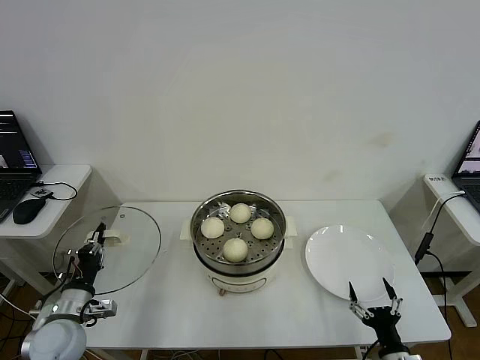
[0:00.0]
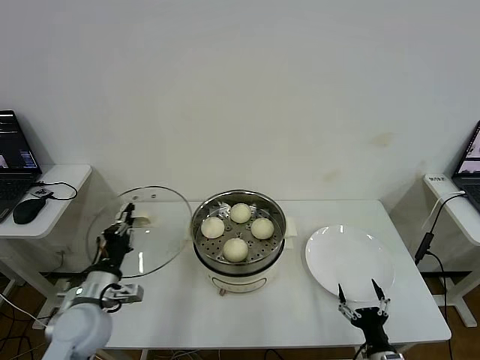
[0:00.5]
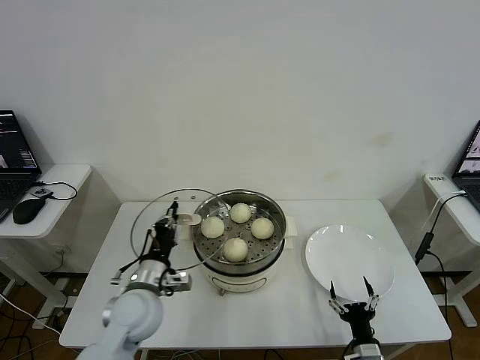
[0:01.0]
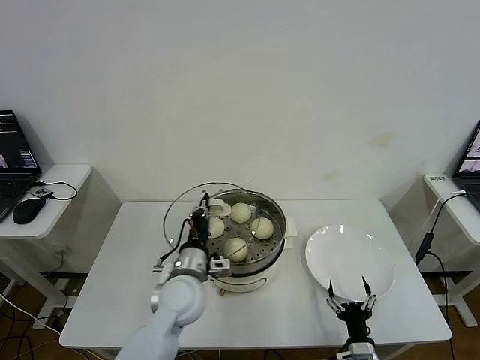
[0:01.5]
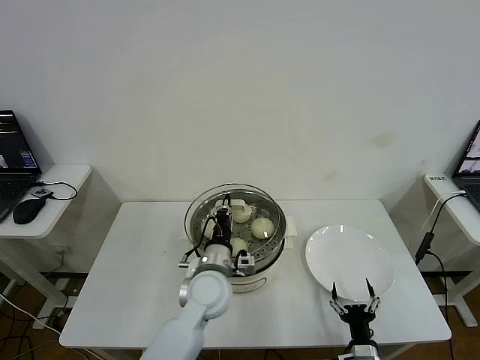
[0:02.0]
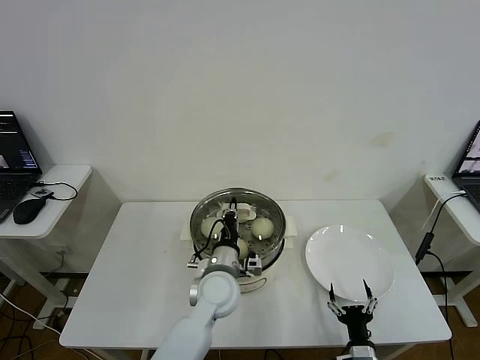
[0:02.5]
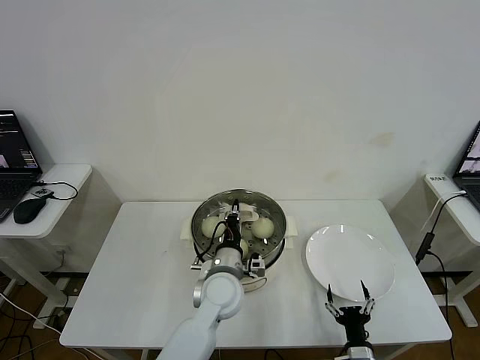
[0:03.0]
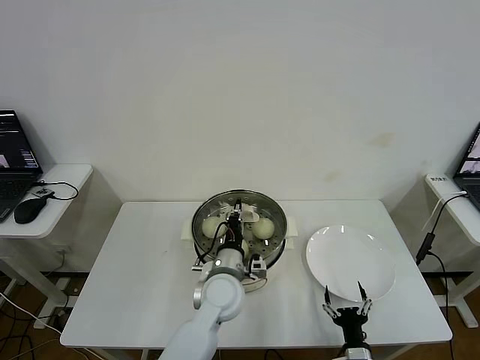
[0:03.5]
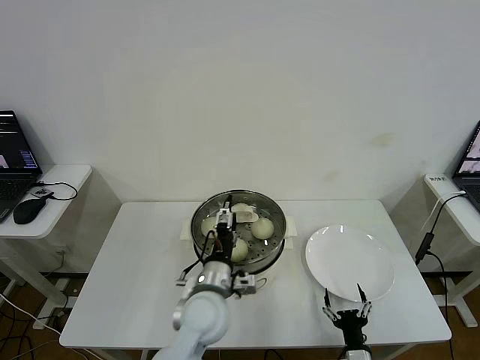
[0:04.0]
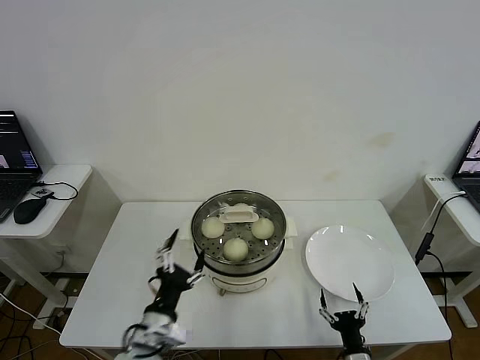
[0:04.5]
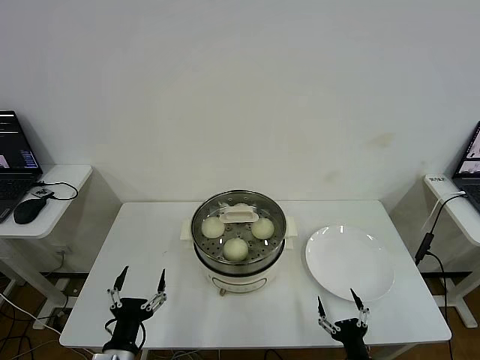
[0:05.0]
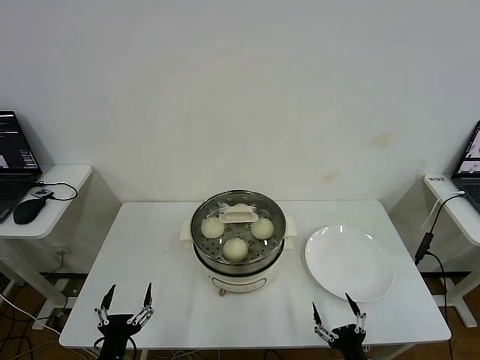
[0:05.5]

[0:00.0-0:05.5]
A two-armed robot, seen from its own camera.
Step, 0:00.0 to 0:03.5: Place the pot lid on the steamer with left gripper.
0:00.0 to 0:02.0: The left gripper goes some 30 cm to the right. The right gripper goes approximately 5 cm to the left.
0:02.0 to 0:03.5: There are only small adjustments of the grippers.
0:03.5 to 0:05.5: The left gripper heads to the left and backward, covering some 30 cm, and opens its fingers. Meanwhile the right gripper travels backward by roughly 5 cm.
